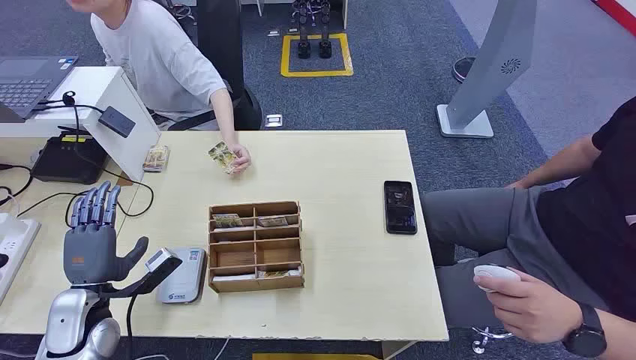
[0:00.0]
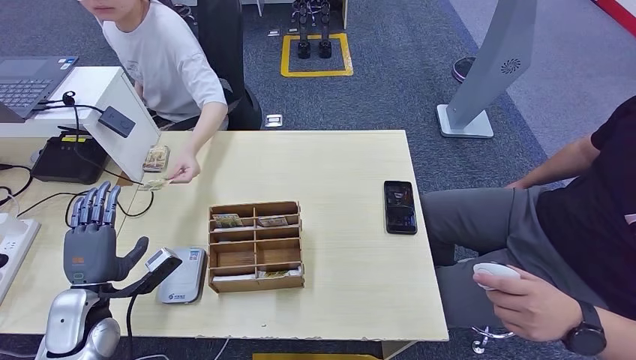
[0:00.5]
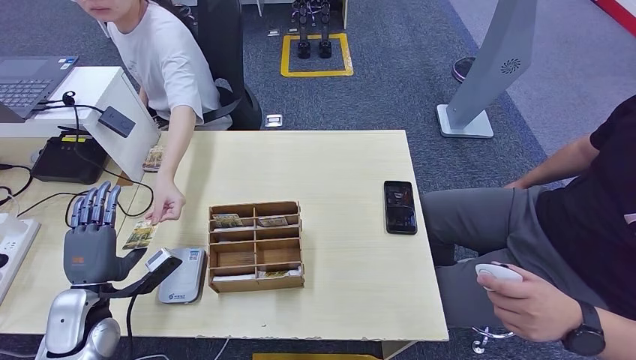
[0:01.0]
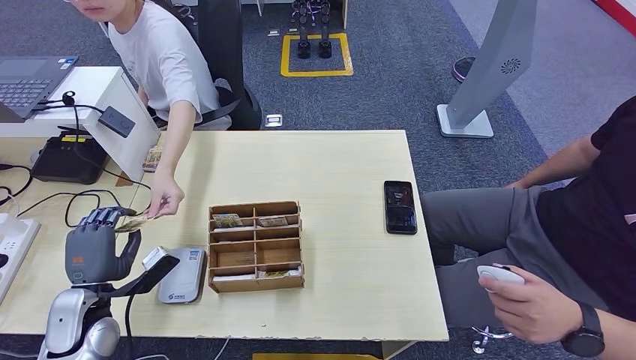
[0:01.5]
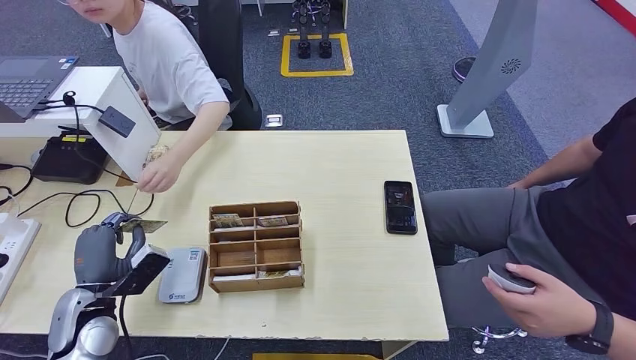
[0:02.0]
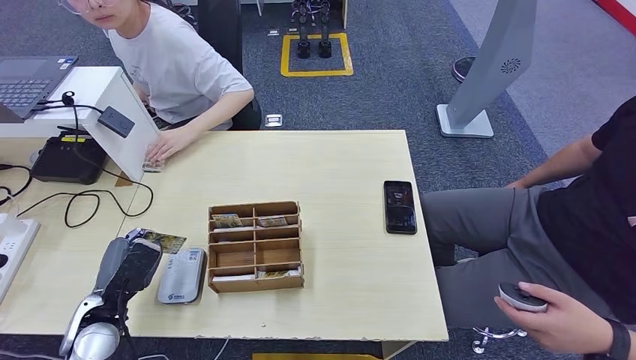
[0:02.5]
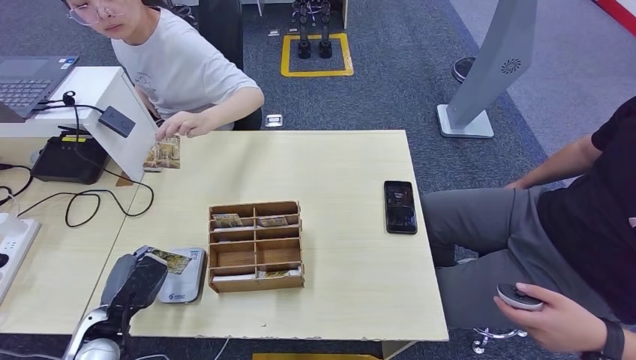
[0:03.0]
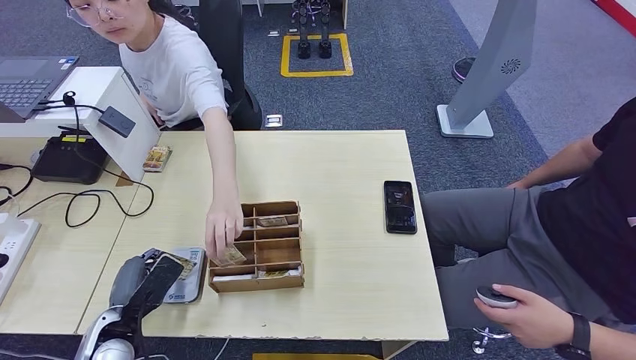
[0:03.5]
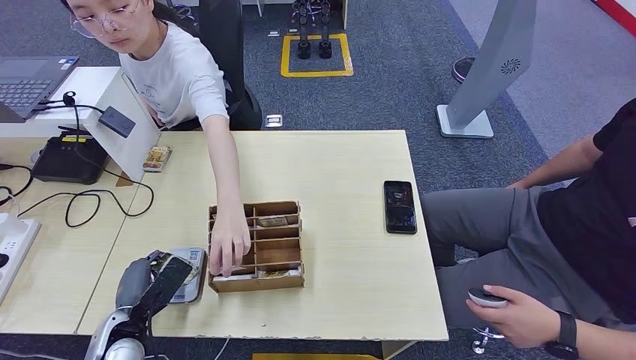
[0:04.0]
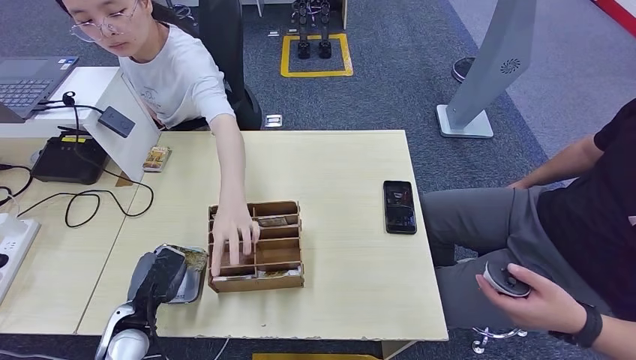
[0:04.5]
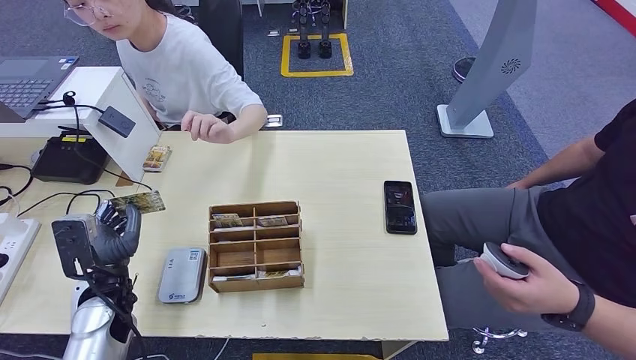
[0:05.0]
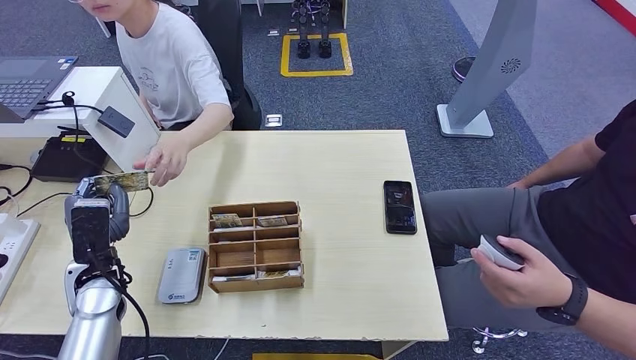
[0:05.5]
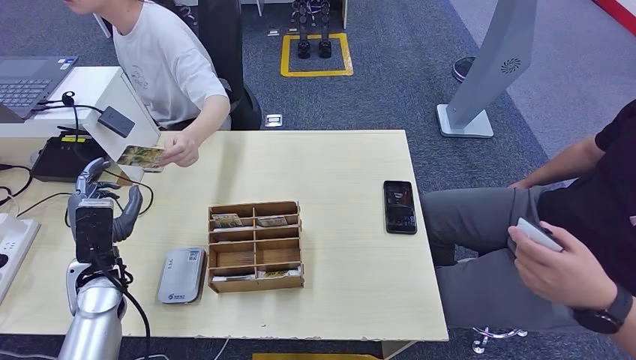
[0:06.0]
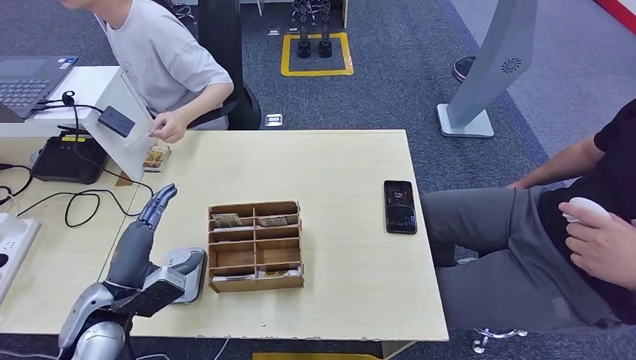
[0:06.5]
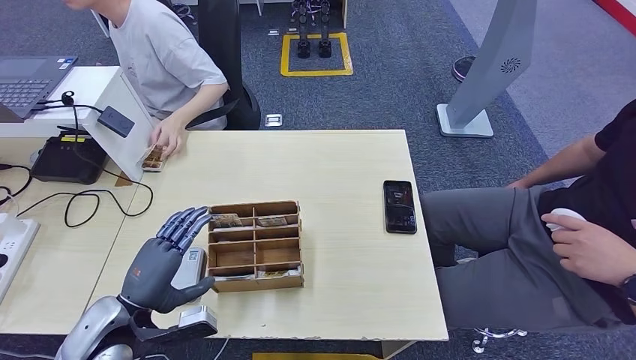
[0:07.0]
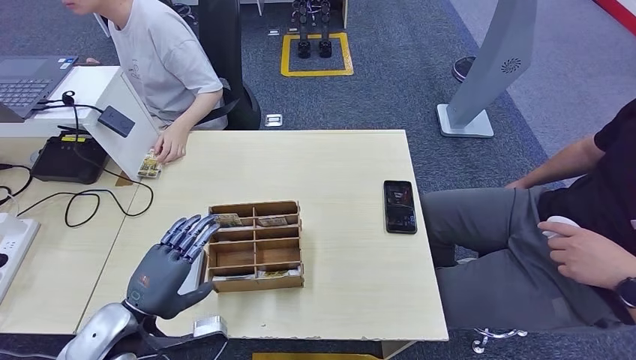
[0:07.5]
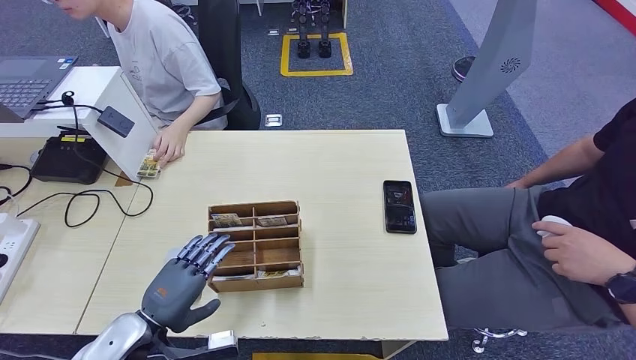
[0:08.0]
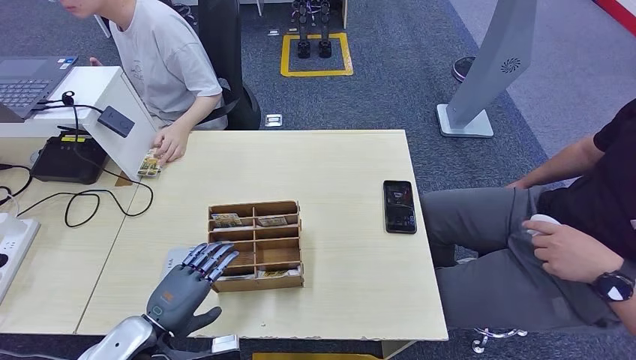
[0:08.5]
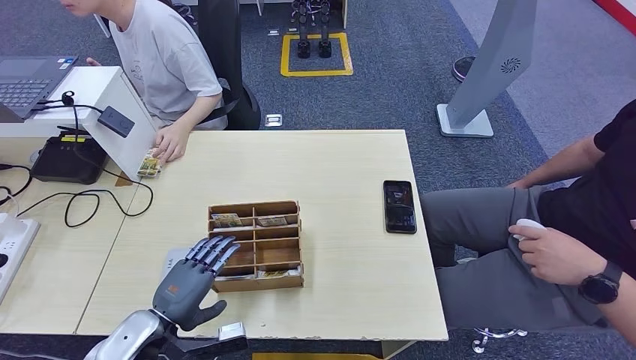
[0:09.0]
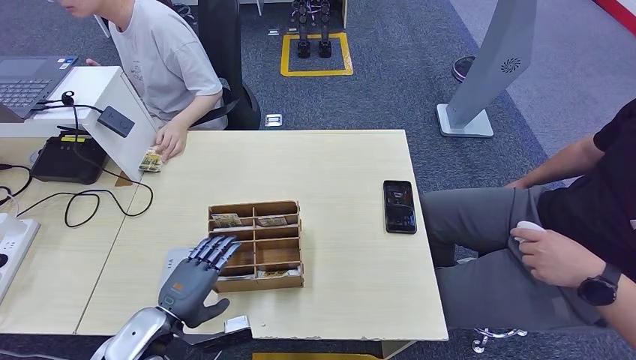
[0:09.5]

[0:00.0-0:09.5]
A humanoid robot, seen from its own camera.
Step, 0:00.0 to 0:01.0: Take the ID card from the person's hand.
Step, 0:01.5 to 0:04.5: Place the ID card on the card reader.
Step, 0:05.0 to 0:06.5: Hand the ID card to the person.
0:02.0 to 0:04.0: The left hand changes place by roughly 5 cm.
0:04.0 to 0:05.5: The left hand shifts about 10 cm upward and forward.
0:05.5 to 0:07.5: The left hand is displaced backward by about 10 cm.
0:07.5 to 0:09.5: The left hand changes place by about 5 cm.

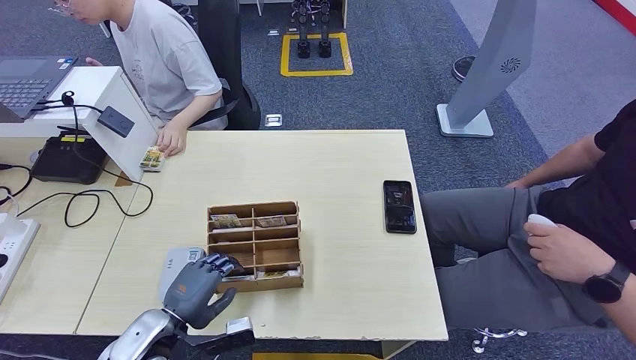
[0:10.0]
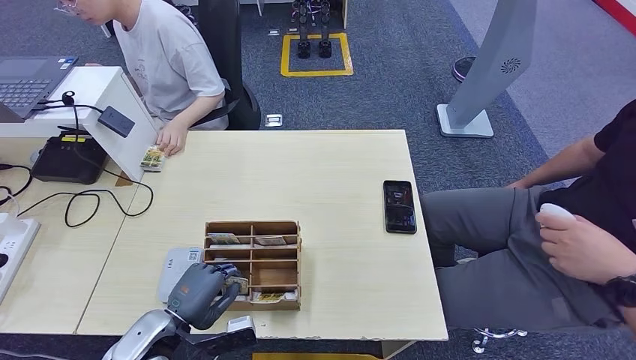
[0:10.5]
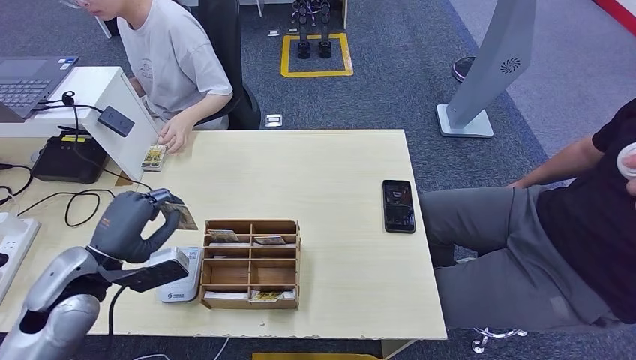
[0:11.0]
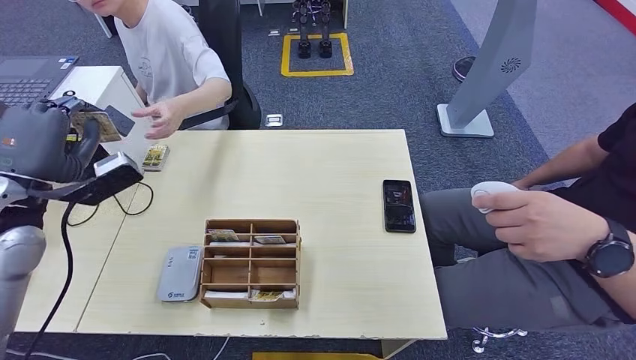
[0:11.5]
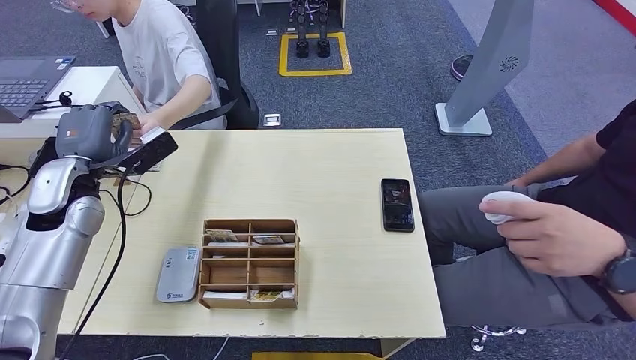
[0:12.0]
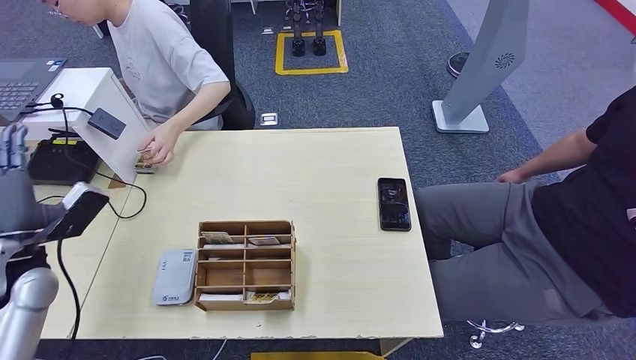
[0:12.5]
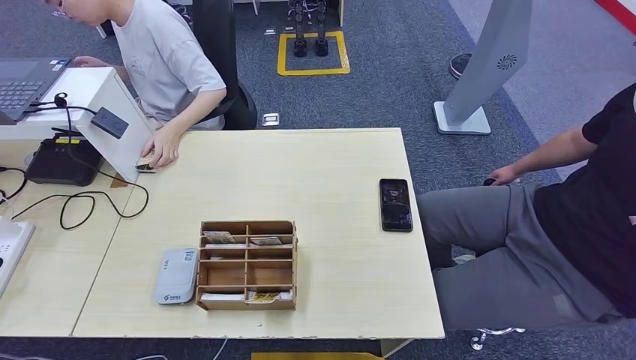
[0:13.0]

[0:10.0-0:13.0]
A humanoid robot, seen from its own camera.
Step, 0:12.0 to 0:13.0: Hand the room key to the person.
